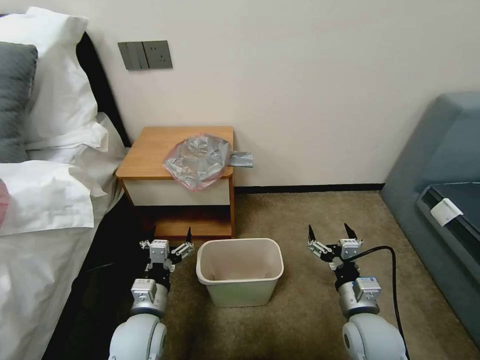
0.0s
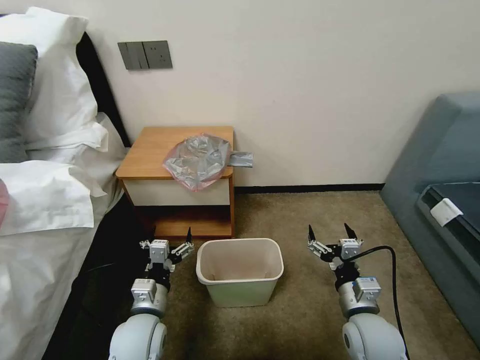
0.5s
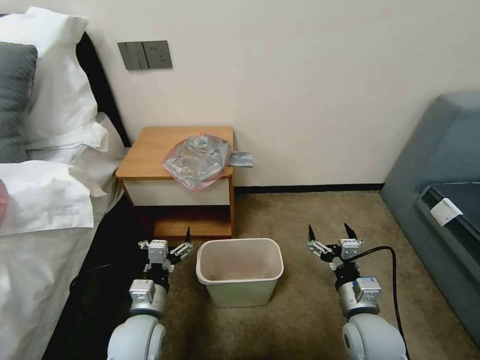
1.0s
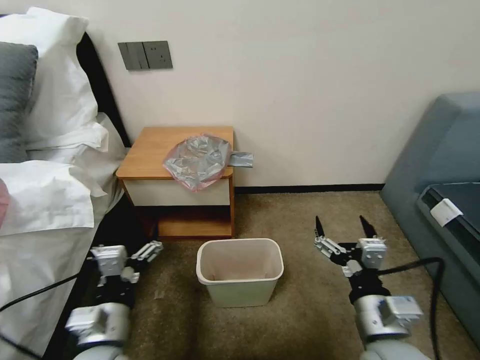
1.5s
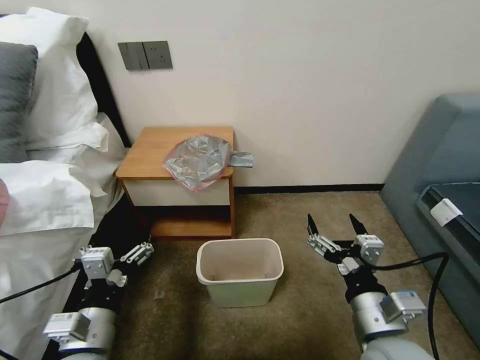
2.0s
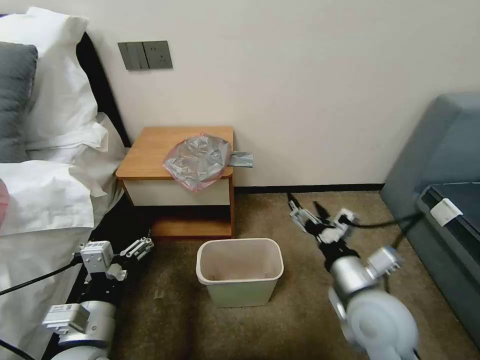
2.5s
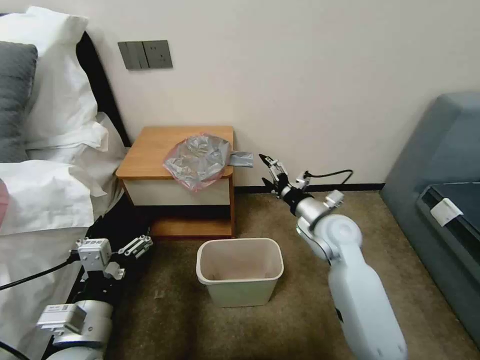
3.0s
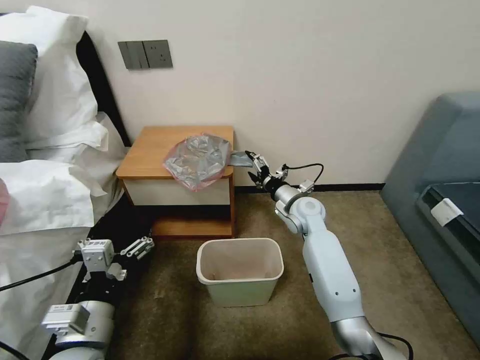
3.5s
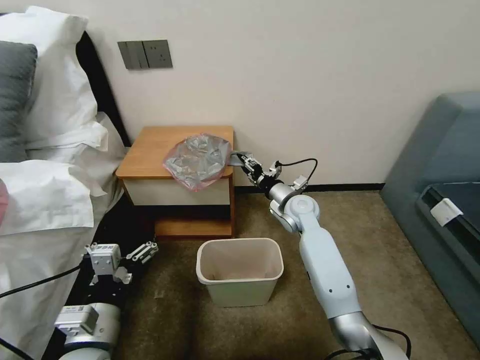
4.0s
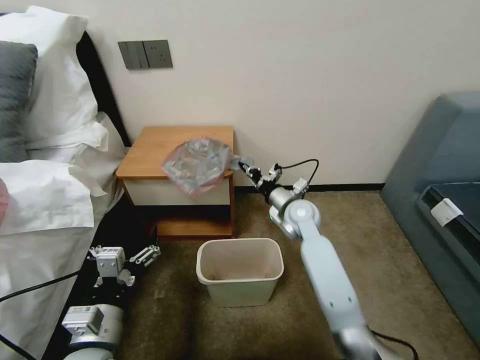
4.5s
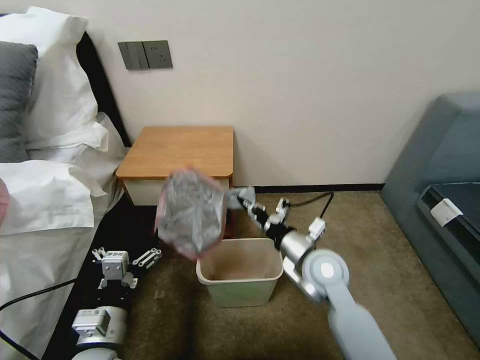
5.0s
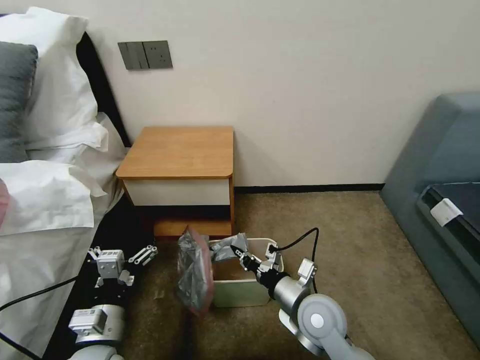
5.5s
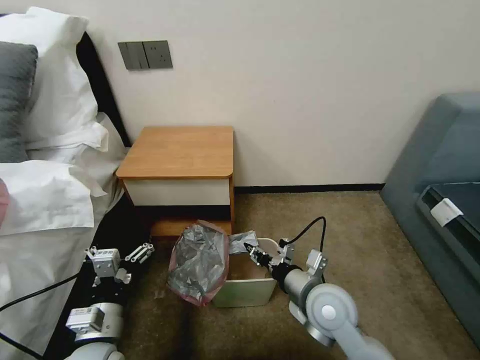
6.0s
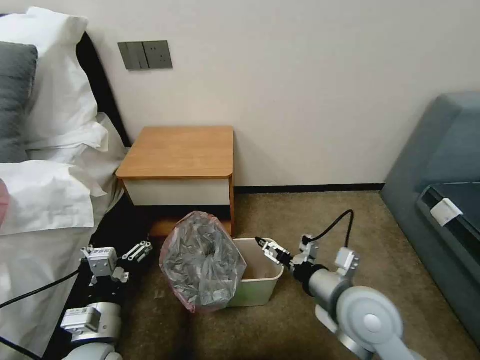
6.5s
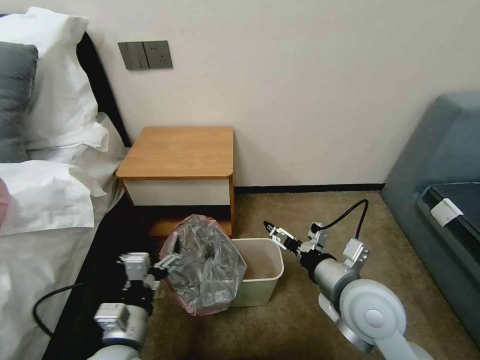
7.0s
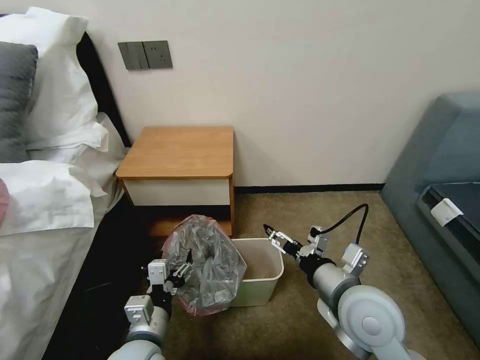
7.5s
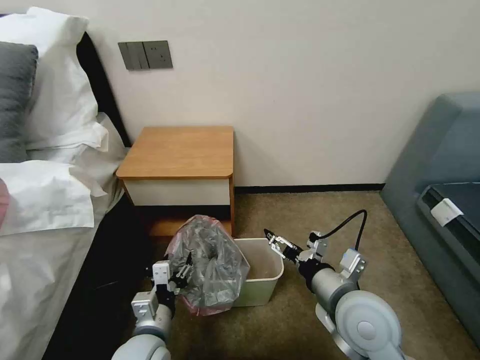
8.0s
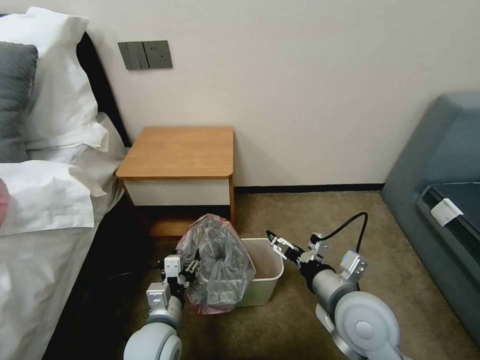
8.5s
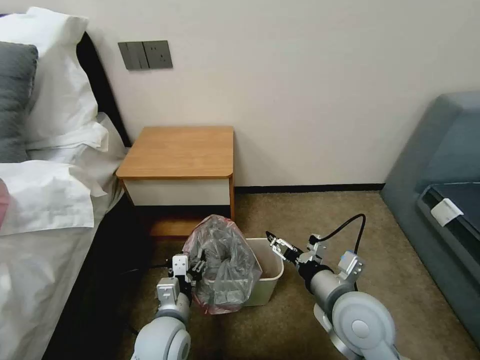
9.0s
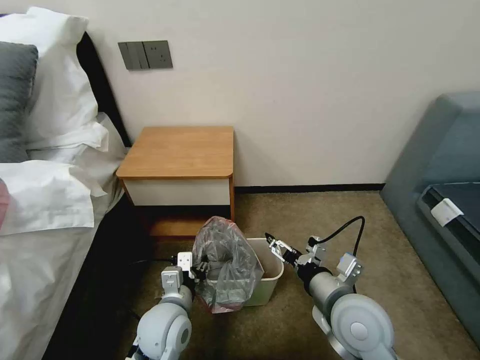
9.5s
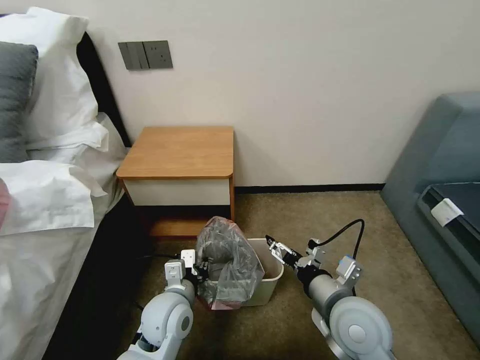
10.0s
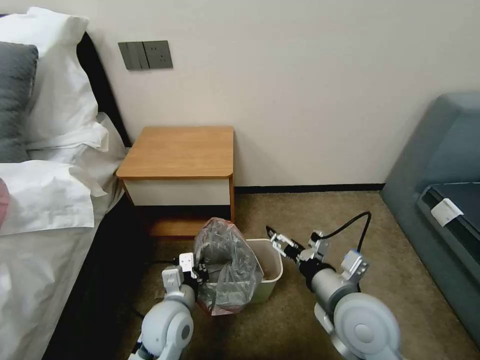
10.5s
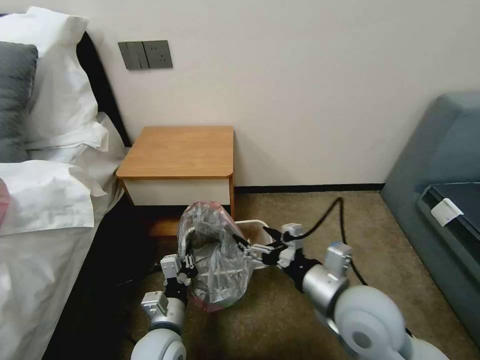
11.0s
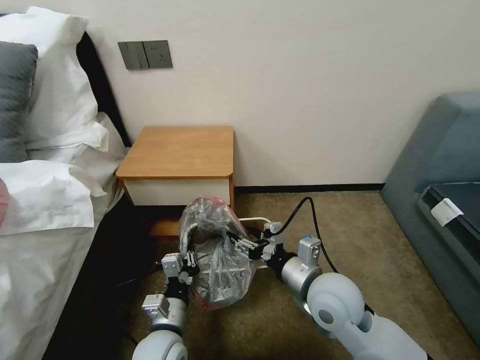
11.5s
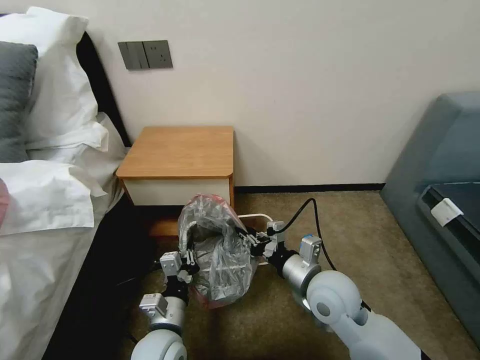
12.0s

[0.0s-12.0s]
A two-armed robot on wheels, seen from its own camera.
Task of the whole recording: Pick up the garbage bag from the table and place it over the trash can.
2.0s to 4.0s: The right gripper goes about 35 cm forward, and closes.
4.0s to 6.0s: The right gripper travels backward by approximately 25 cm. Meanwhile the left gripper changes place by about 5 cm.
6.0s to 8.0s: The left gripper moves to the right, roughly 5 cm; the right gripper shifts some 5 cm upward, and opens.
8.0s to 10.0s: The left gripper moves forward, approximately 10 cm.
10.0s to 12.0s: The right gripper shifts approximately 5 cm forward, and closes up; the left gripper is displaced backward by about 5 cm.

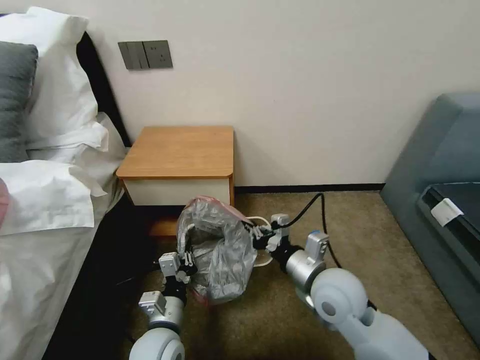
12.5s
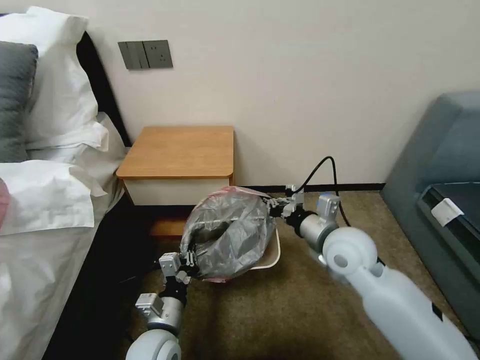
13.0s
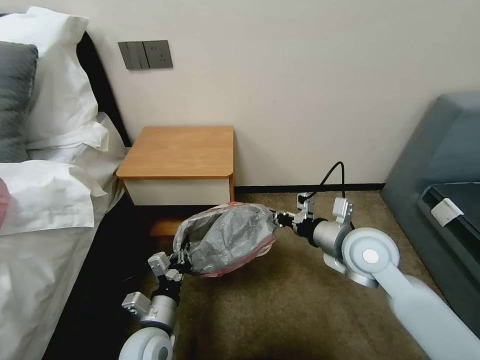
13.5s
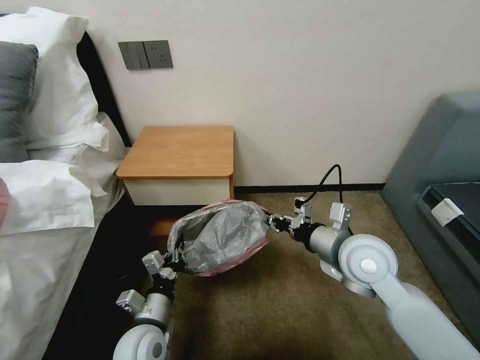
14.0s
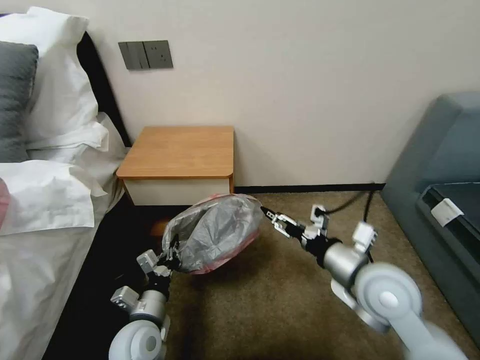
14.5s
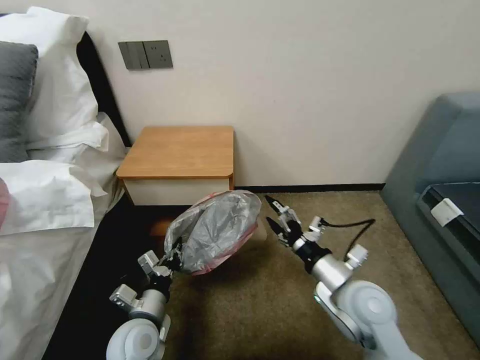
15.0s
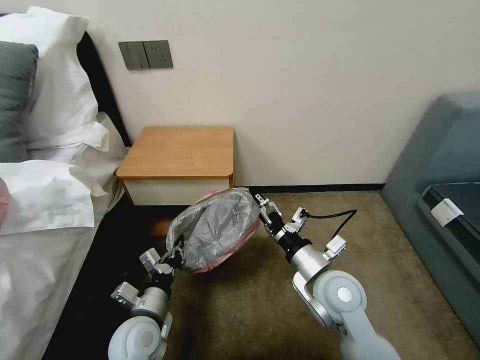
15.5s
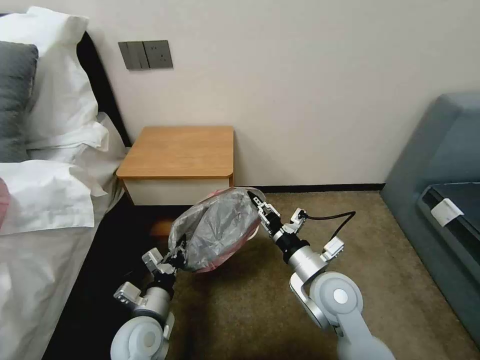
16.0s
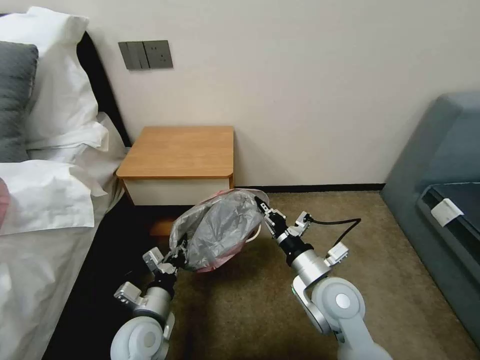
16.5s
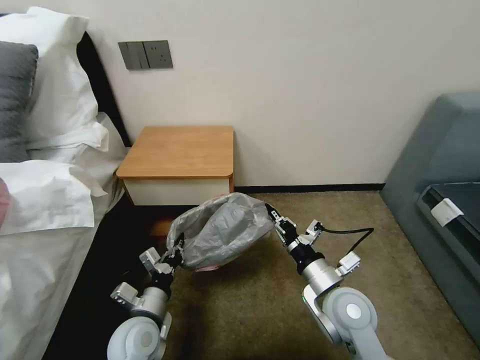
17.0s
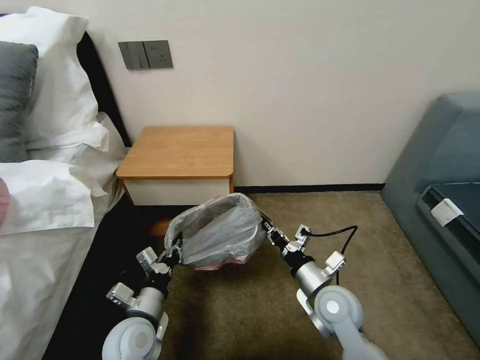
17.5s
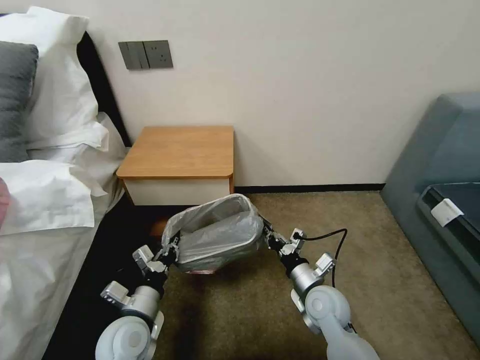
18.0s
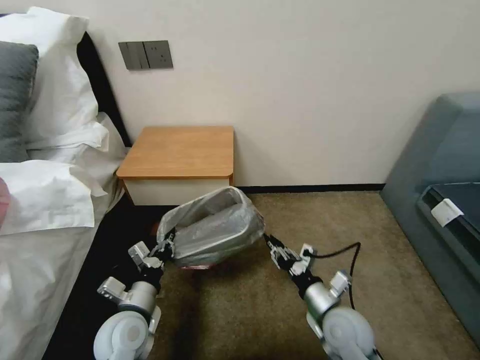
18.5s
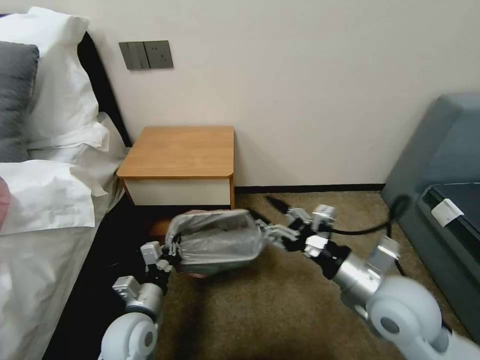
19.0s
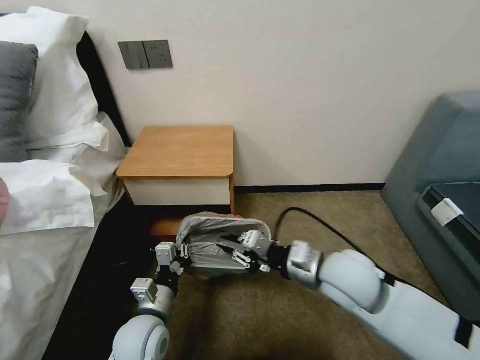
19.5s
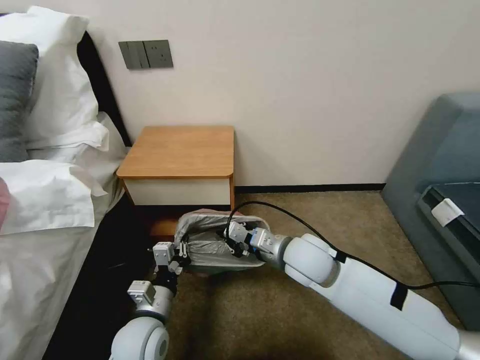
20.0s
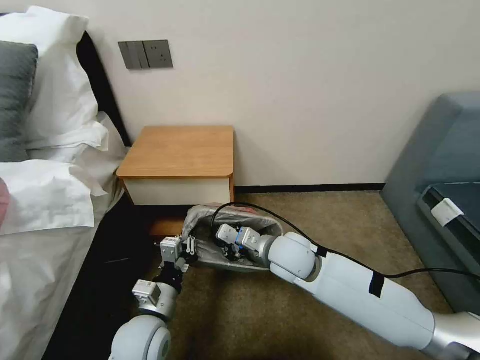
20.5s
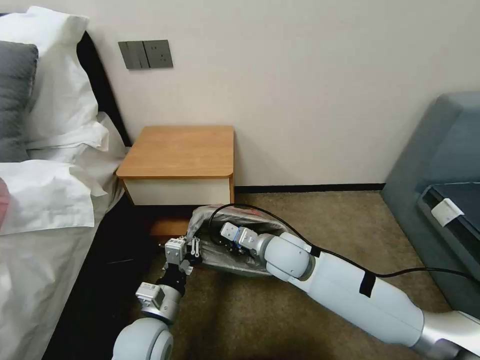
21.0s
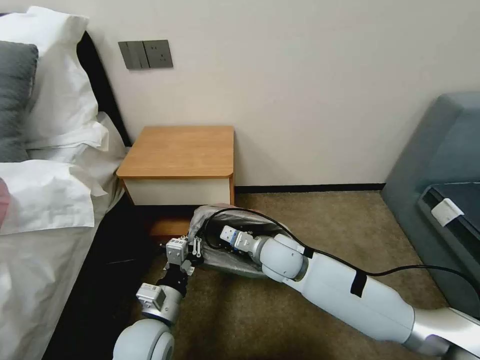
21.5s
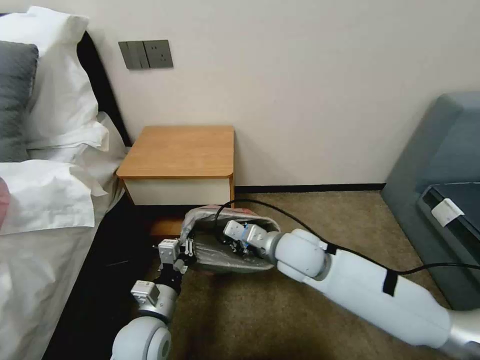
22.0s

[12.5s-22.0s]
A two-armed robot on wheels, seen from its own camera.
Task of the whole recording: Pick up the garbage bag from the table and place it over the trash can.
12.5s to 14.5s: The right gripper travels to the right by some 5 cm, and opens. The left gripper goes about 5 cm to the left.
14.5s to 16.5s: The right gripper is displaced downward and to the left by approximately 10 cm, and closes its fingers.
16.5s to 18.0s: The right gripper goes about 10 cm downward.
18.0s to 20.0s: The right gripper goes some 15 cm upward and to the left, and opens, then closes once more.

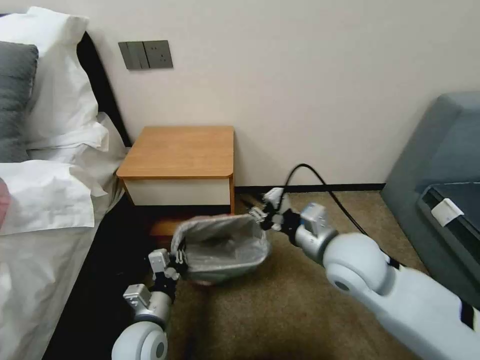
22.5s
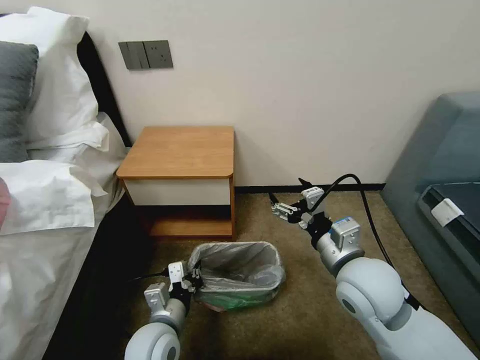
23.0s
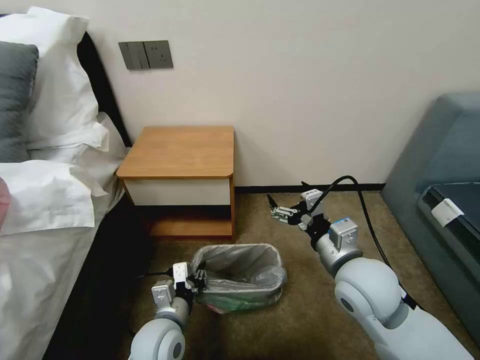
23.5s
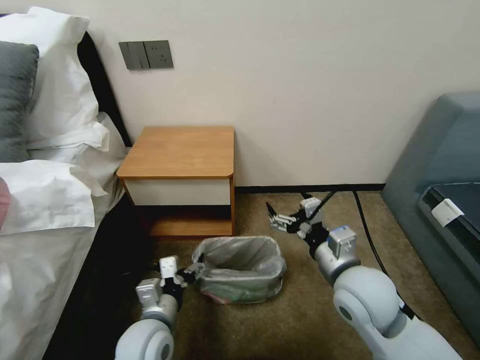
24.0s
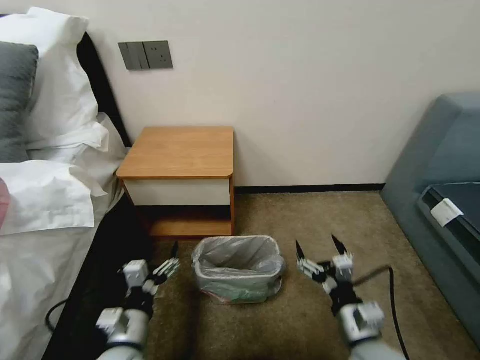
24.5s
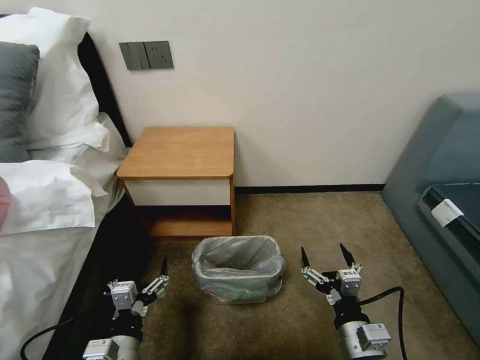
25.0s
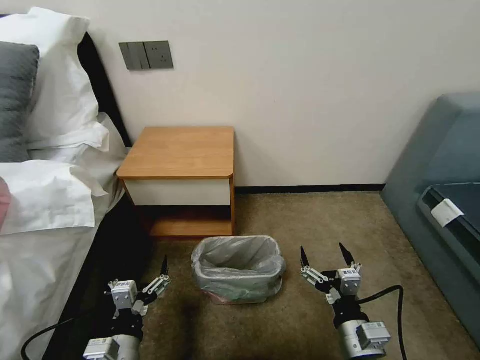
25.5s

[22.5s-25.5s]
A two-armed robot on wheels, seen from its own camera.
Task of the whole recording: Pick up the garbage bag from the table and place it over the trash can.
22.5s to 24.0s: The left gripper opens. Meanwhile the right gripper ends up roughly 5 cm from where it was, and opens.
24.0s to 25.5s: The left gripper shifts roughly 10 cm backward, while the right gripper is displaced backward and downward by about 15 cm.
